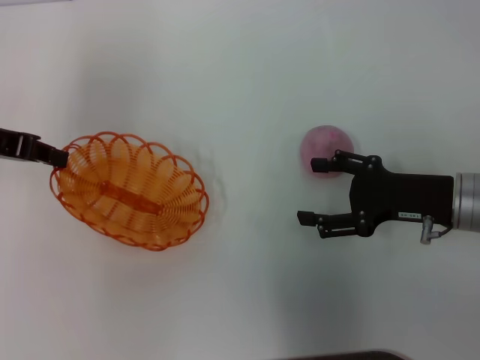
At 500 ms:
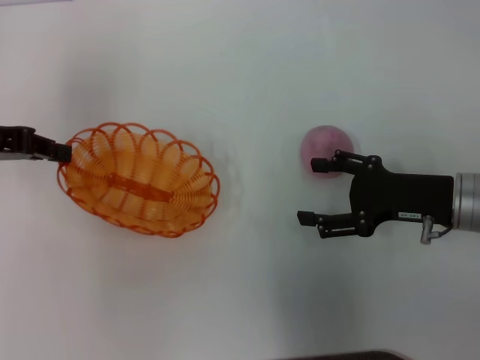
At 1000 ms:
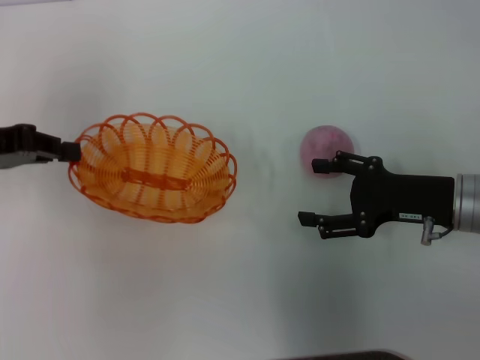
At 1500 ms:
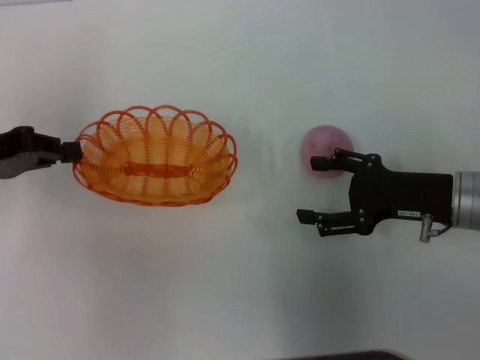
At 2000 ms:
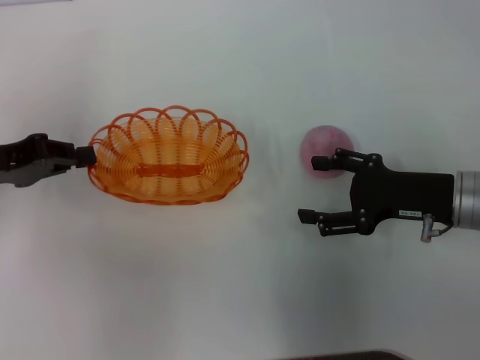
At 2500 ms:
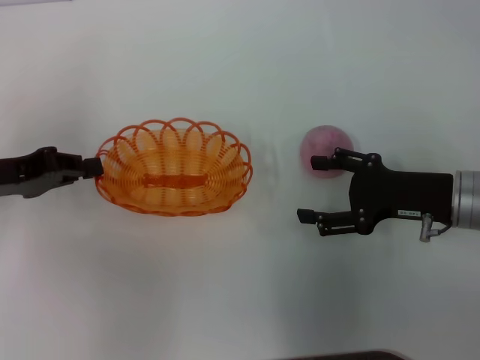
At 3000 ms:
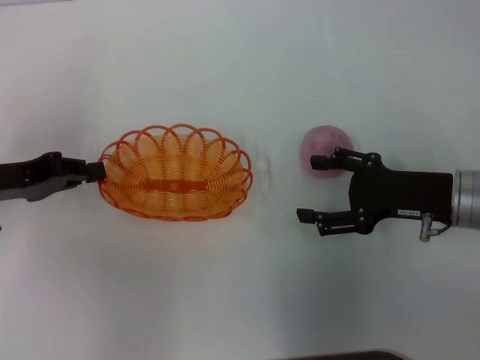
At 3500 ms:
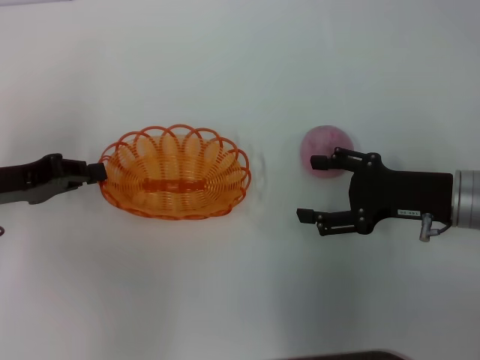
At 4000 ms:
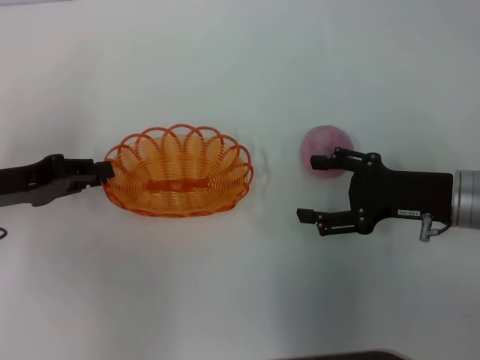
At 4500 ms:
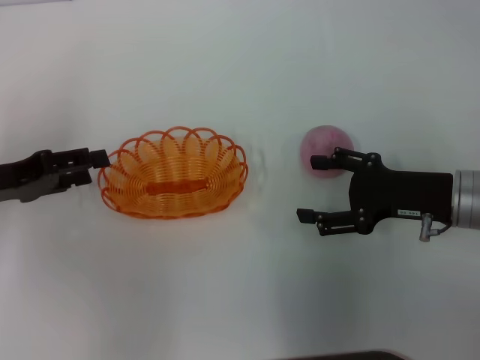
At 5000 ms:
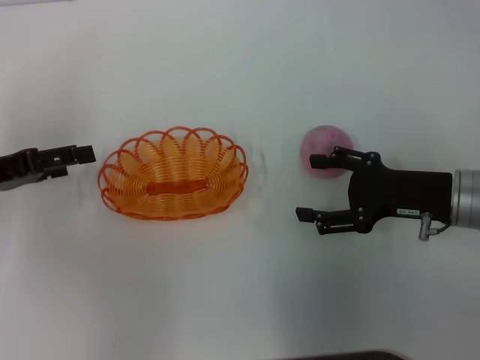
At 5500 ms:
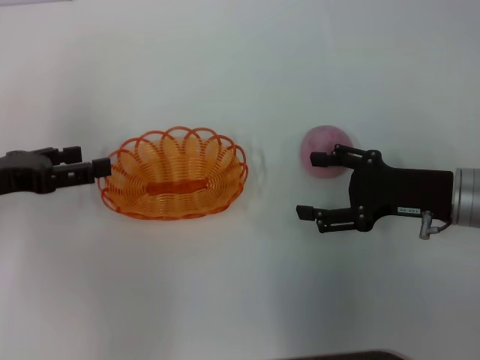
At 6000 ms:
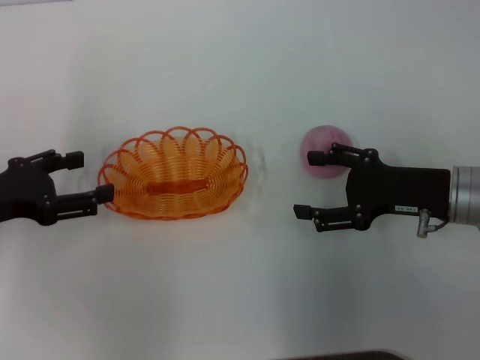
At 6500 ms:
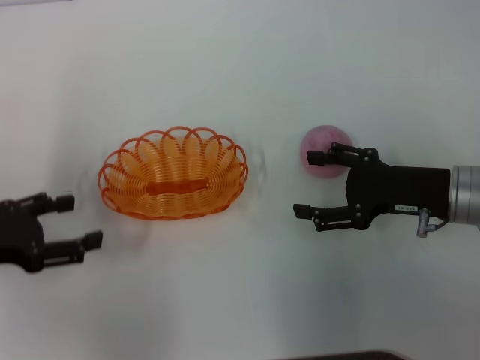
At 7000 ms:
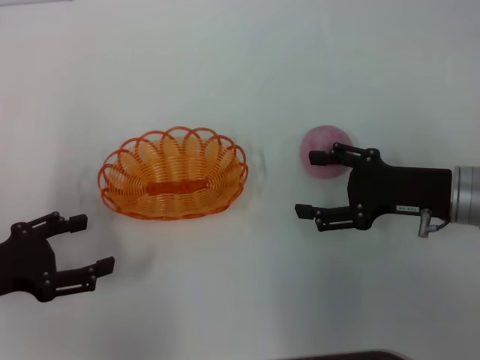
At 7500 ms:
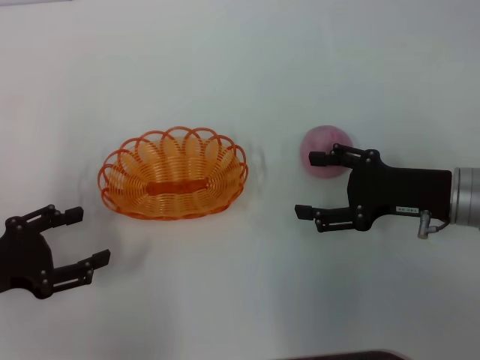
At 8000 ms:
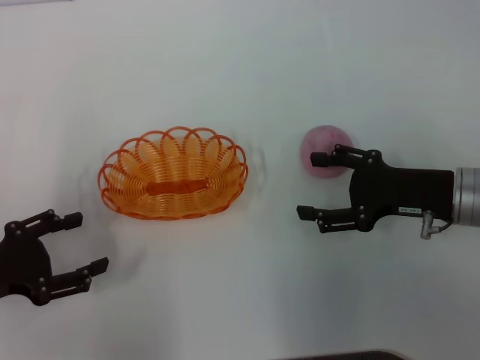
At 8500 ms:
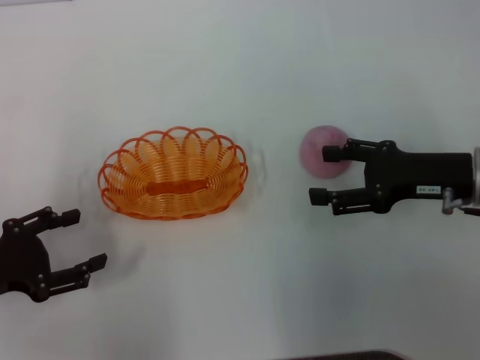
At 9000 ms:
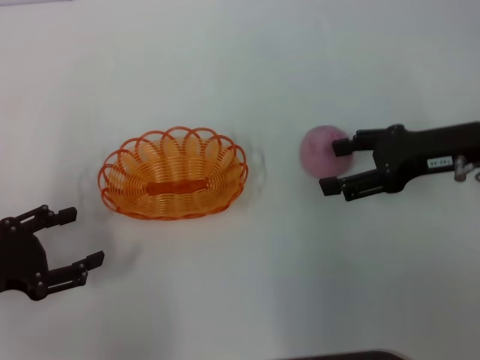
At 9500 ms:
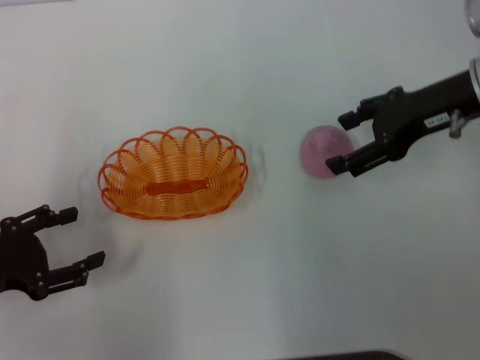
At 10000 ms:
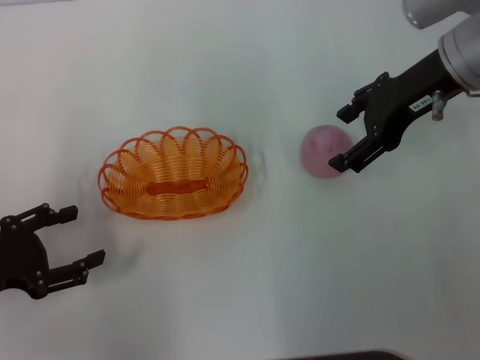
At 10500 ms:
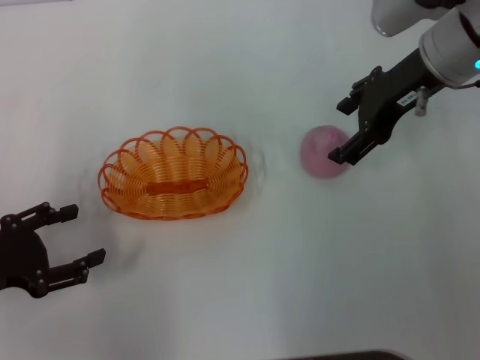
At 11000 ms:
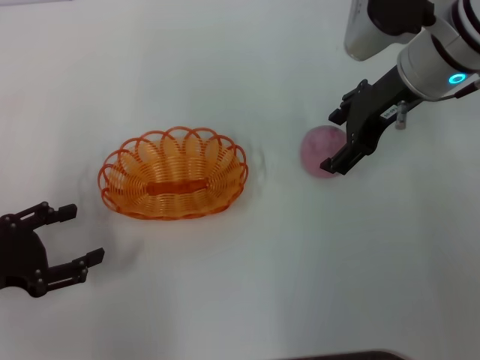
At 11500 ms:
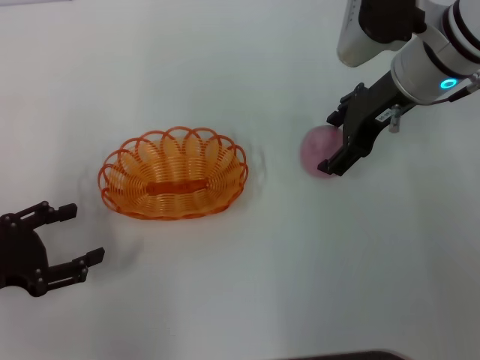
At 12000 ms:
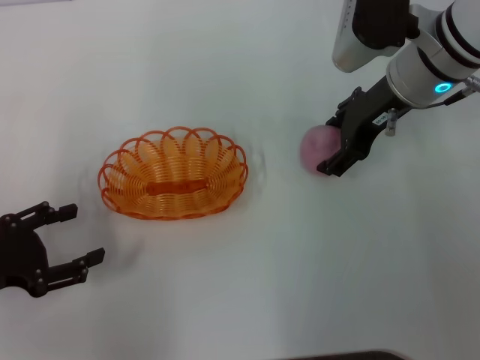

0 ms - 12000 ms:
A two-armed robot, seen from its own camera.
Step, 1000 ms - 6500 ms: Place the basket in the center of view with the left gripper.
0 ms - 2000 ms: The left gripper moves downward, approximately 5 cm.
2000 ms - 4000 ms: The grippers stay close to where they were, moving slightly.
4000 ms - 6000 ms: The left gripper opens up.
6000 ms - 8000 ms: The left gripper heads backward, covering some 5 cm.
8000 ms - 10000 ms: The right gripper goes roughly 15 cm upward and forward.
10000 ms - 12000 ms: The right gripper changes place by approximately 5 cm.

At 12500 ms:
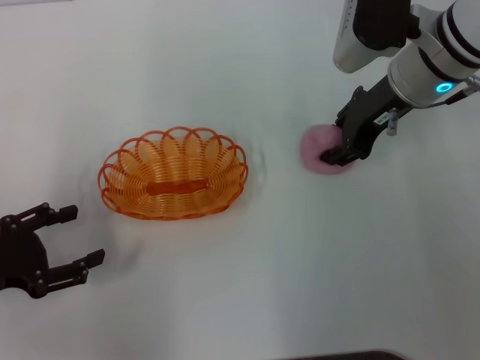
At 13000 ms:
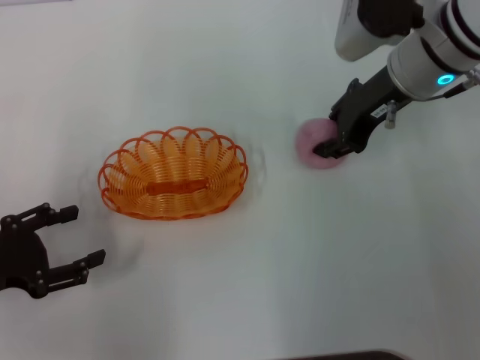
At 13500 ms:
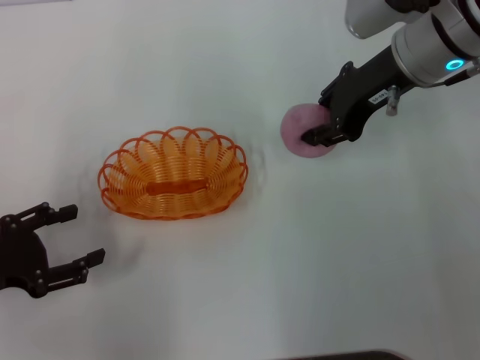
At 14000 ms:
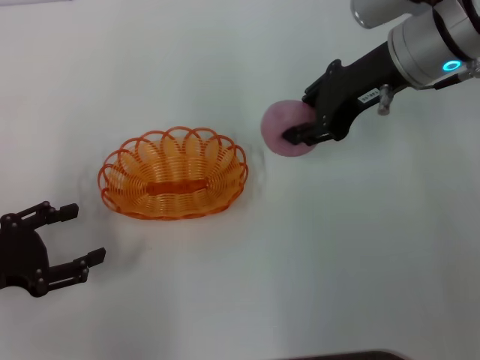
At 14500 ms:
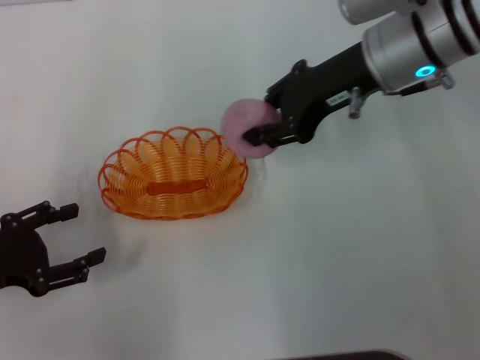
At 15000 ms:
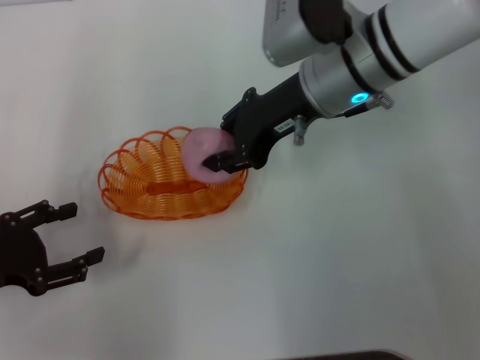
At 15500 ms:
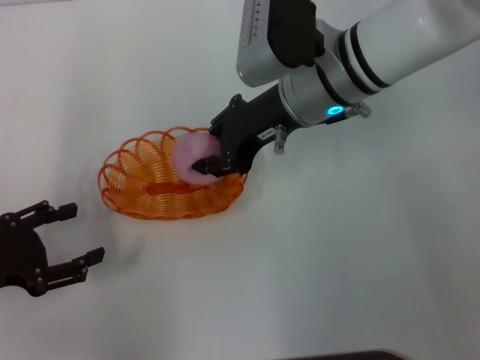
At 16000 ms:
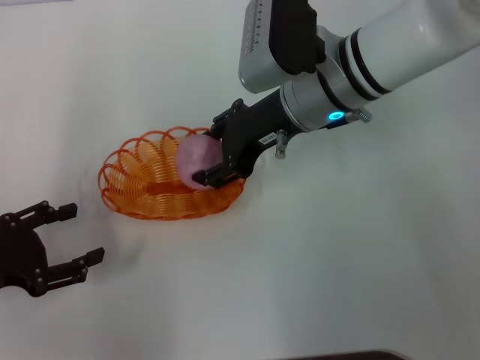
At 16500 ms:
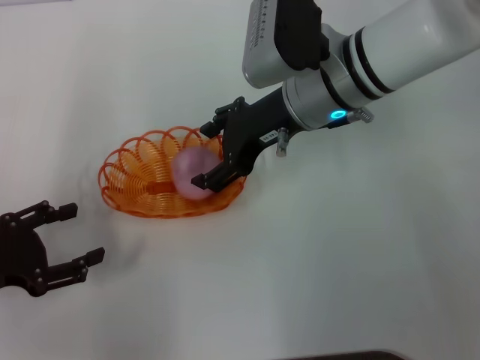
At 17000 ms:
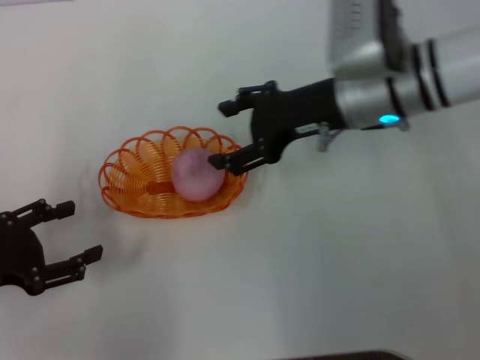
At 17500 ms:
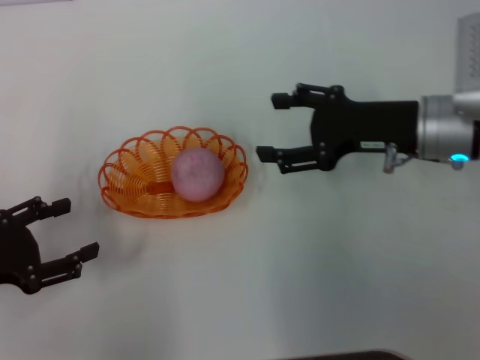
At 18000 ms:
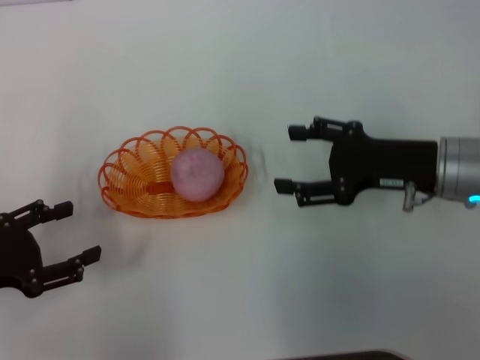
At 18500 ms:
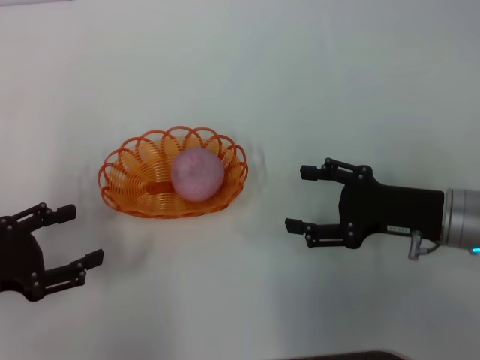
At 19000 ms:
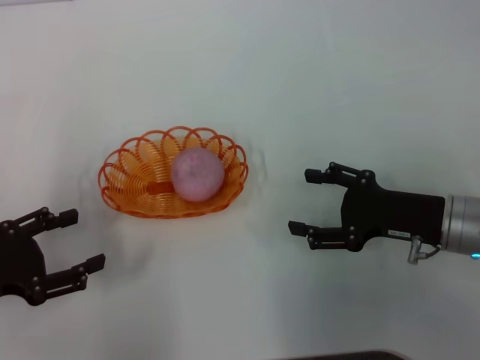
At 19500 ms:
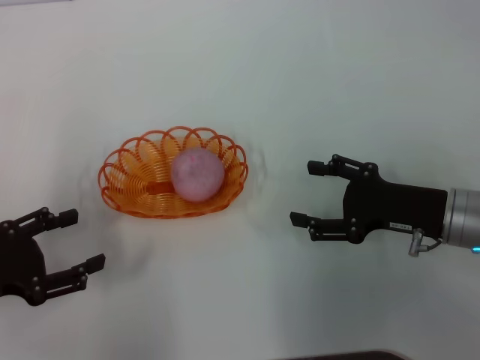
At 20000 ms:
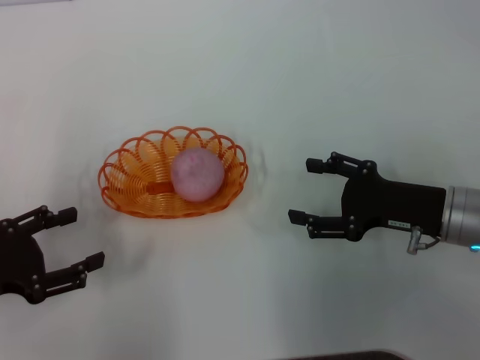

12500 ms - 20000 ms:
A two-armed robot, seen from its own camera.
Step, 14000 ms - 17500 ms: Place the peach into the basket with the right gripper.
12500 ms - 14500 ms: The right gripper closes up.
14500 ms - 16500 ms: The right gripper shifts about 5 cm to the left, and opens up.
16500 ms - 18000 ms: The right gripper travels to the right, backward and downward by approximately 15 cm.
18000 ms - 20000 ms: The right gripper moves about 5 cm.
